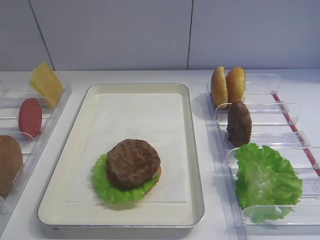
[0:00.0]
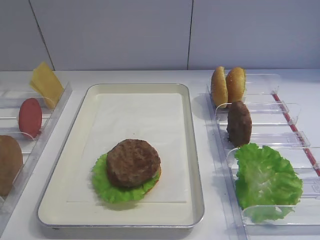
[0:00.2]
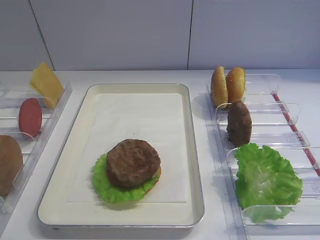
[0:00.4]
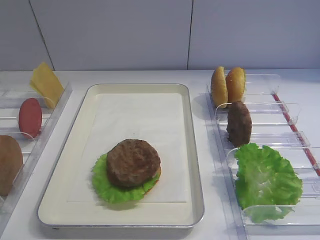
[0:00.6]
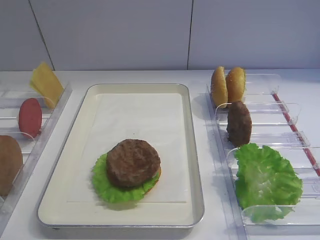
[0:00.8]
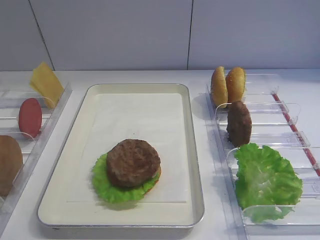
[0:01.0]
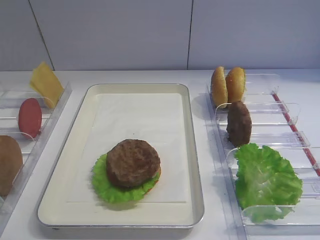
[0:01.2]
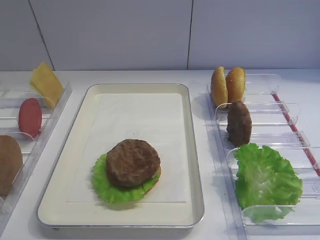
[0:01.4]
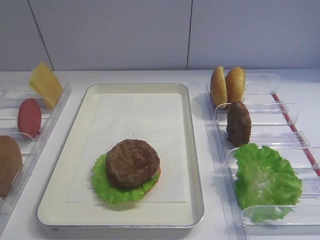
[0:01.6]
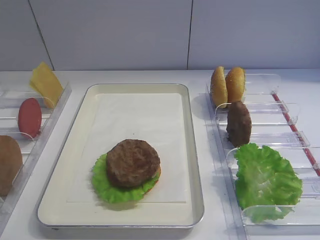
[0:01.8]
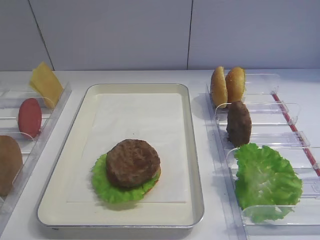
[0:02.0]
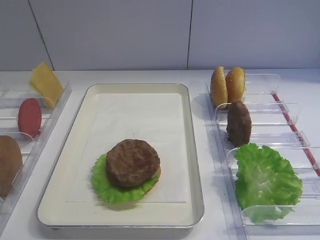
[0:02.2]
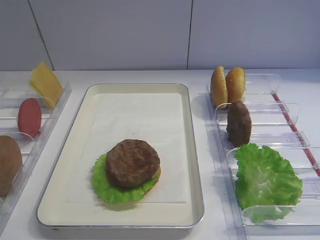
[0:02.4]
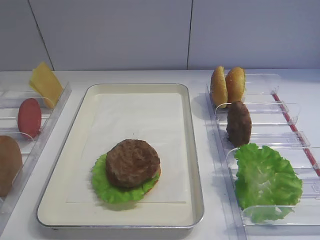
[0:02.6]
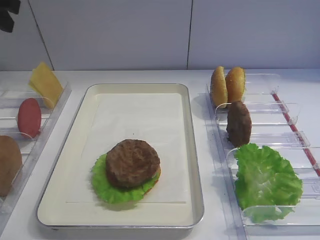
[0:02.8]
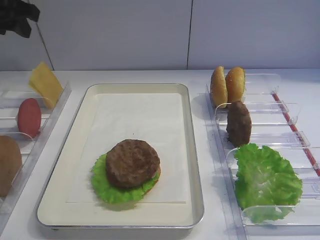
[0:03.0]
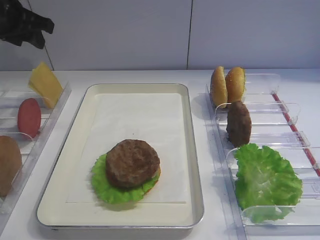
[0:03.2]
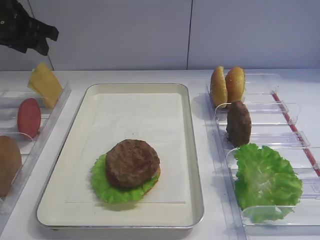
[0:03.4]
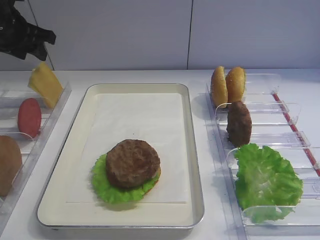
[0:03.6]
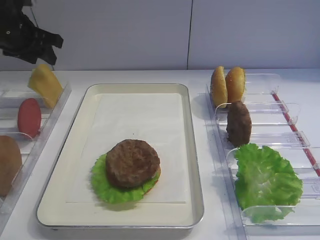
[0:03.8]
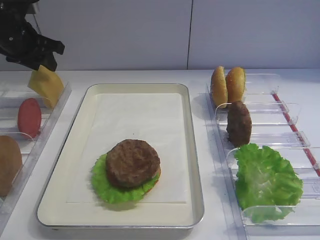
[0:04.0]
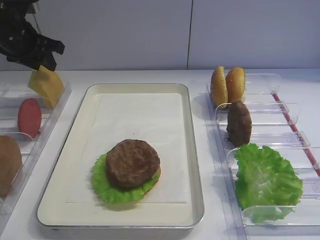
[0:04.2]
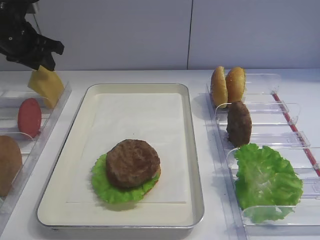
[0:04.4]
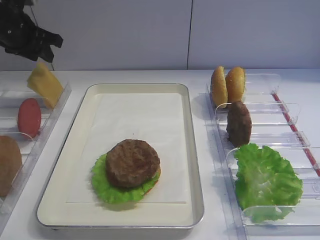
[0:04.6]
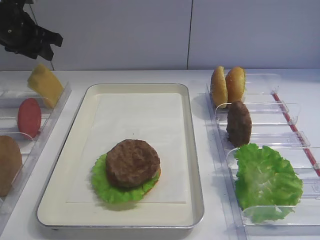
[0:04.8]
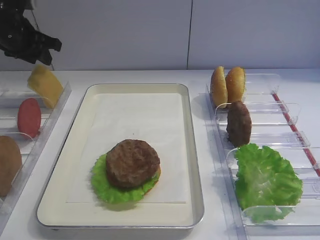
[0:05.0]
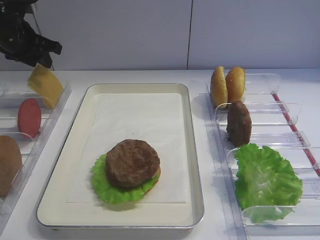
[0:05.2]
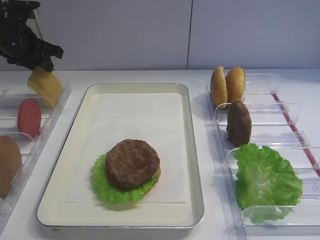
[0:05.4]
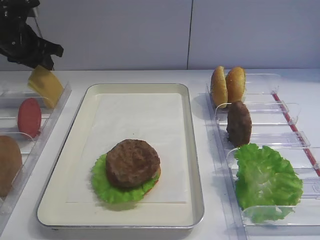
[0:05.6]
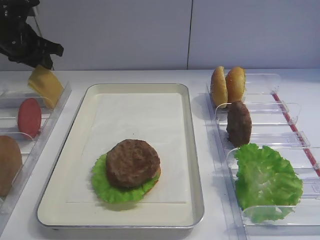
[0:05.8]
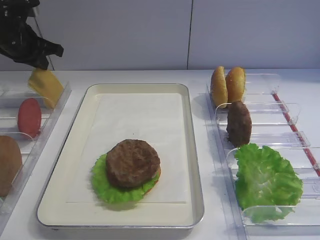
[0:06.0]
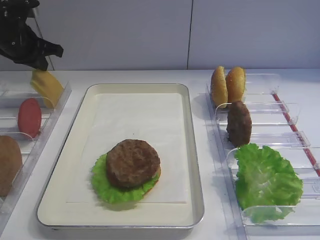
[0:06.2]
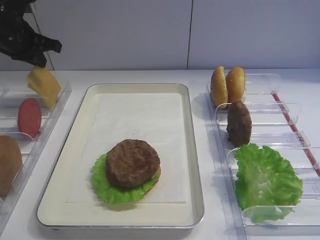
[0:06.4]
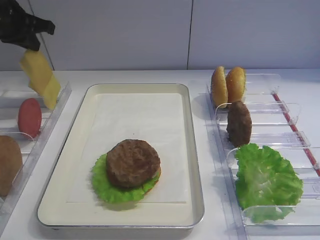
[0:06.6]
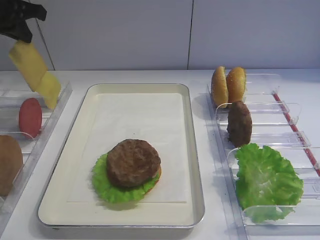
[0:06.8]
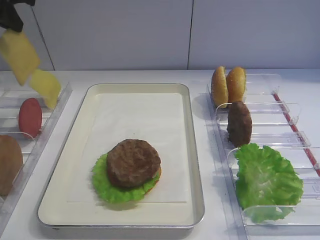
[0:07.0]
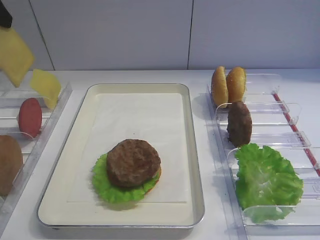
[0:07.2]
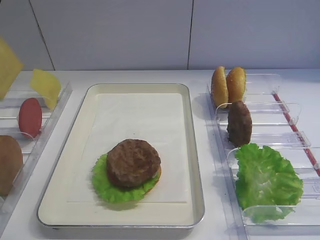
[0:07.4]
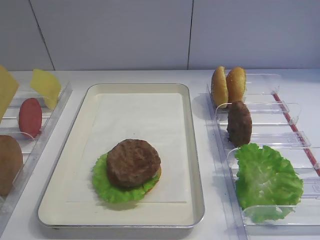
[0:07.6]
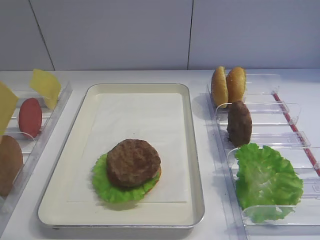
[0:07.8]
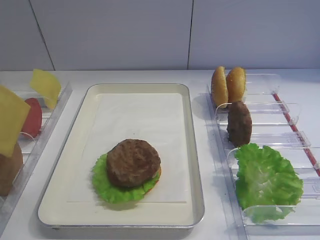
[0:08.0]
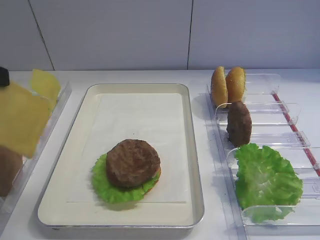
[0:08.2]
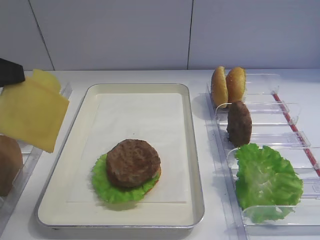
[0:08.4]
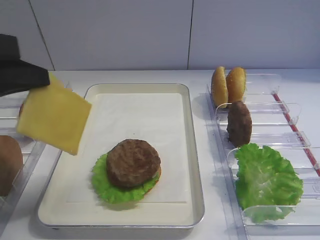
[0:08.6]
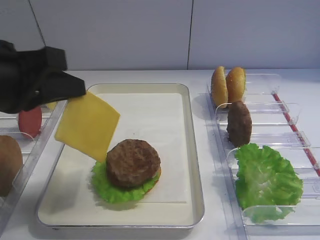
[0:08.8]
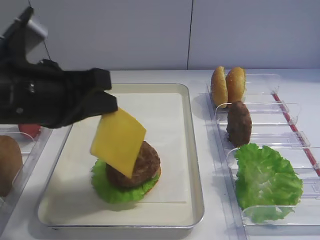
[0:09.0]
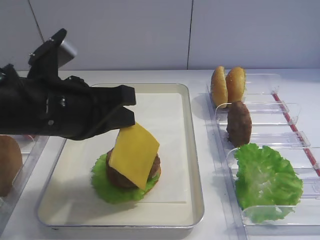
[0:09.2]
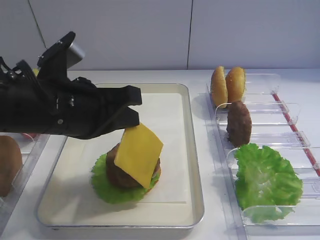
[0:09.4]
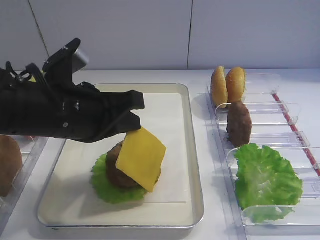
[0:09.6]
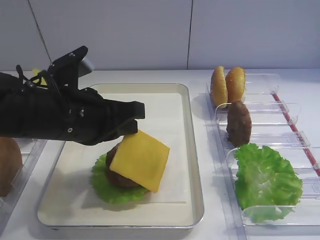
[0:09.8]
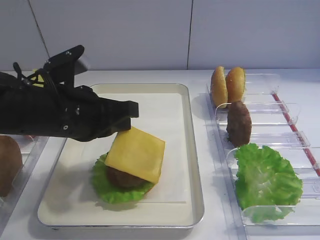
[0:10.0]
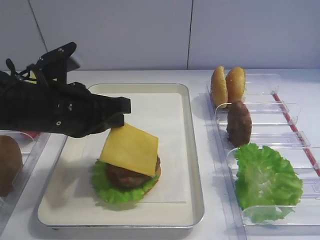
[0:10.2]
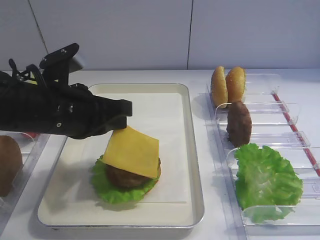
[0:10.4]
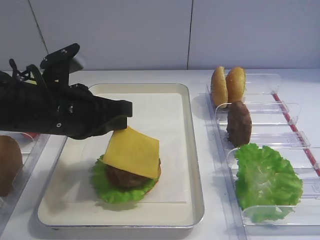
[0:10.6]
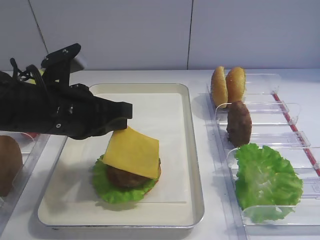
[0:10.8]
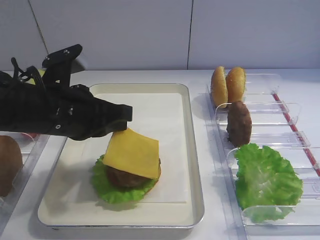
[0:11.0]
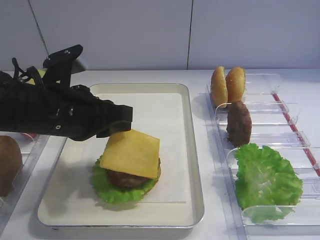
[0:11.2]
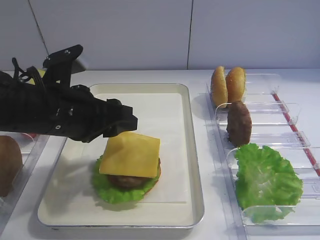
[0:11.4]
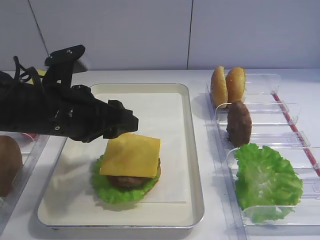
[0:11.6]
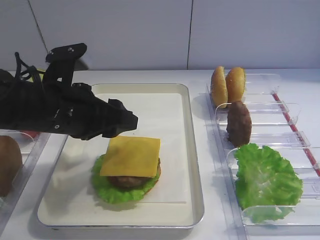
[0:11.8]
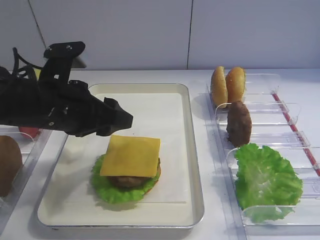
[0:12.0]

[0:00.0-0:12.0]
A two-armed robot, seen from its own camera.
Step, 0:00.0 to 0:07.0: Pick up the cheese slice with the left gripper.
0:01.6 to 0:03.0: The left gripper shifts roughly 35 cm forward.
0:03.0 to 0:04.4: The left gripper travels downward and forward by about 10 cm.
0:04.4 to 0:06.0: The left gripper closes.
0:06.0 to 0:07.6: The left gripper goes roughly 25 cm backward and upward.
0:07.6 to 0:09.0: The left gripper is displaced to the right and downward by some 15 cm.
0:09.0 to 0:10.4: The left gripper moves downward, approximately 5 cm.
0:10.4 to 0:12.0: The left gripper opens.

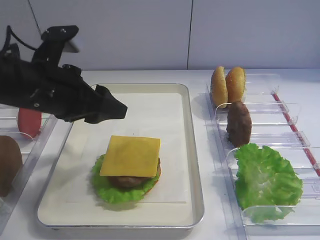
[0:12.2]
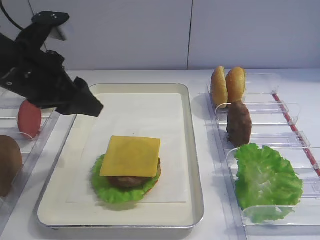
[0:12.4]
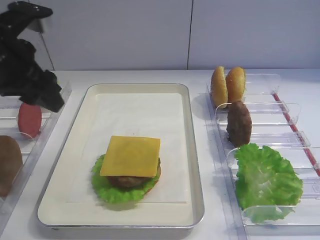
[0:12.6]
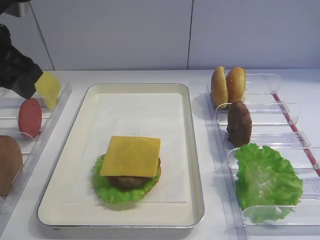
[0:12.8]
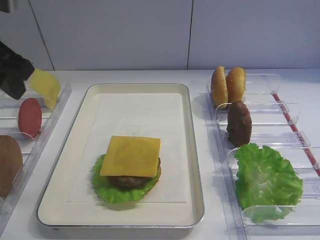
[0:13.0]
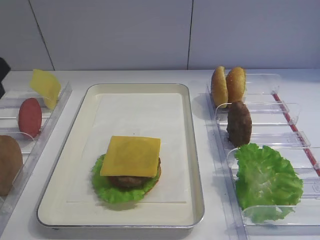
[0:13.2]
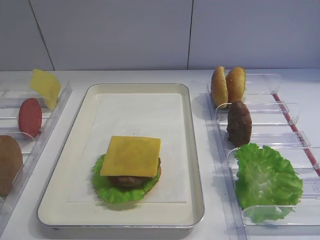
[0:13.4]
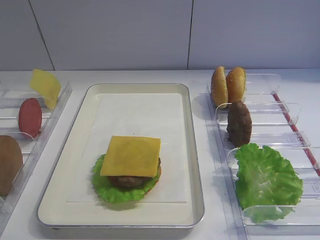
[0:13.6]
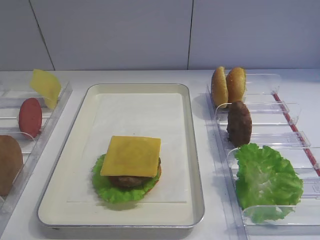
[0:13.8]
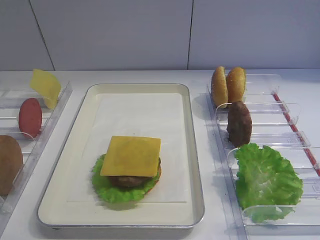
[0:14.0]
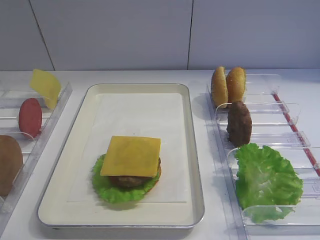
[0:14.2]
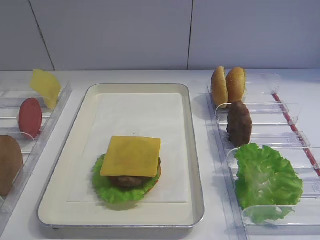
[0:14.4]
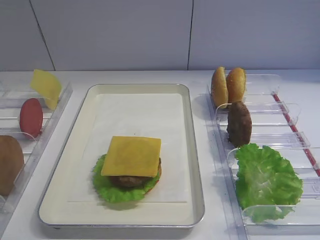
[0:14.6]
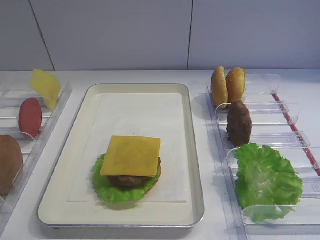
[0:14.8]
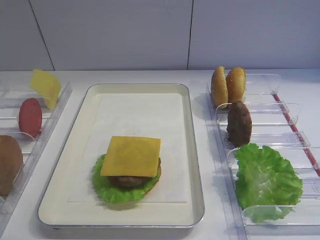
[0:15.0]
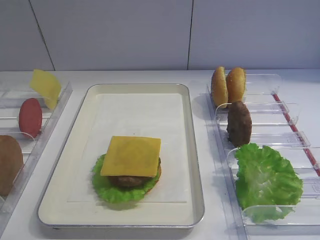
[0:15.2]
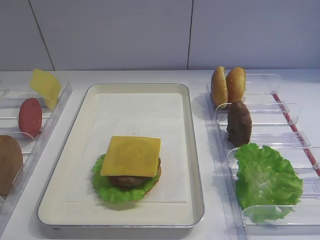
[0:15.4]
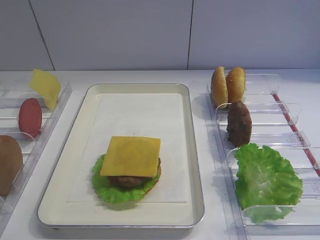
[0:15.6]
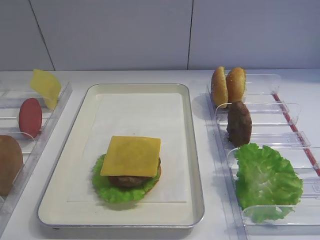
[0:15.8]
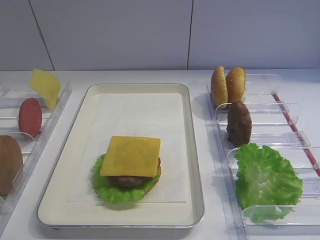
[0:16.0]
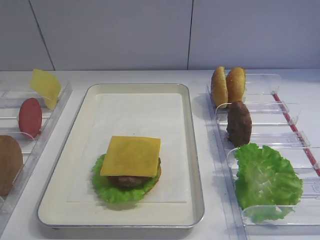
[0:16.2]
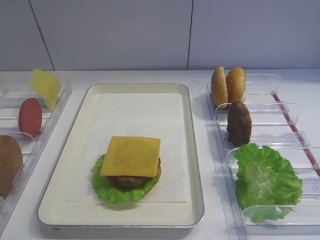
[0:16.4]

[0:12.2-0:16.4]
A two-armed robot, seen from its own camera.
0:12.2 to 0:13.6: The left gripper travels backward, to the left and upward by roughly 20 cm.

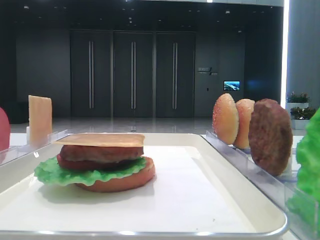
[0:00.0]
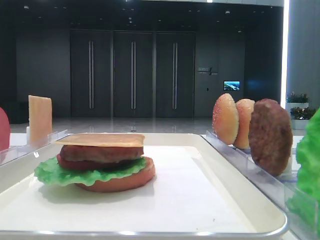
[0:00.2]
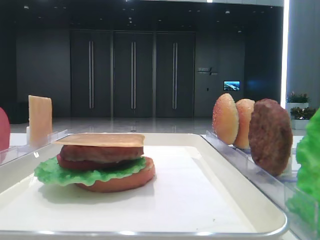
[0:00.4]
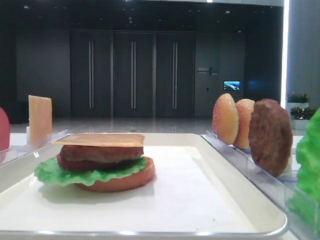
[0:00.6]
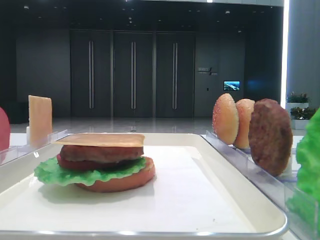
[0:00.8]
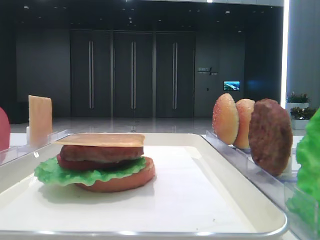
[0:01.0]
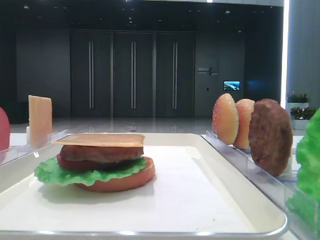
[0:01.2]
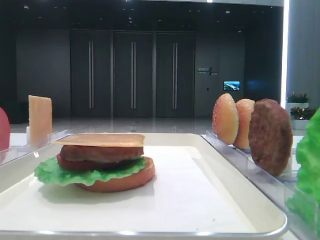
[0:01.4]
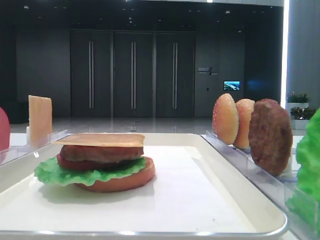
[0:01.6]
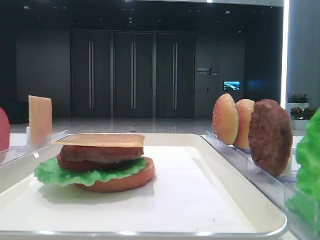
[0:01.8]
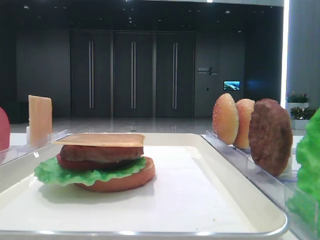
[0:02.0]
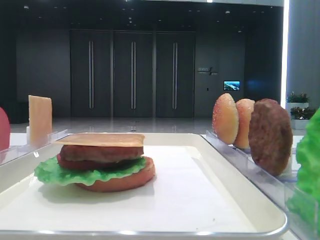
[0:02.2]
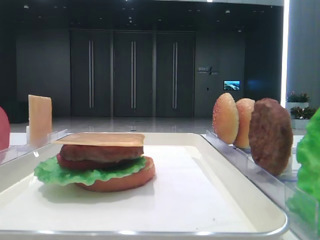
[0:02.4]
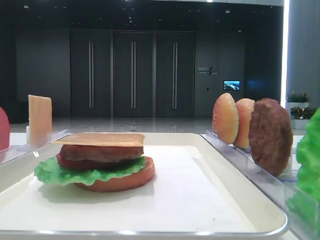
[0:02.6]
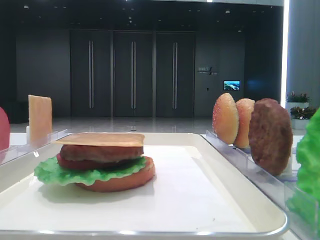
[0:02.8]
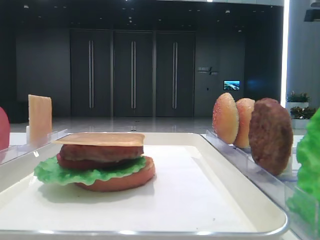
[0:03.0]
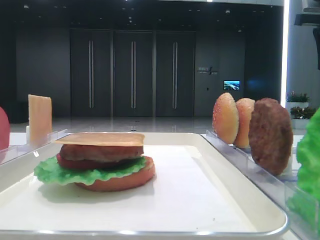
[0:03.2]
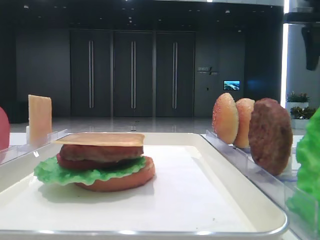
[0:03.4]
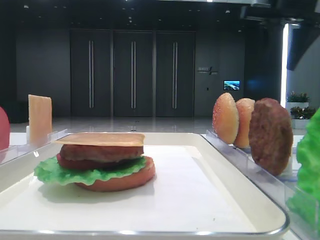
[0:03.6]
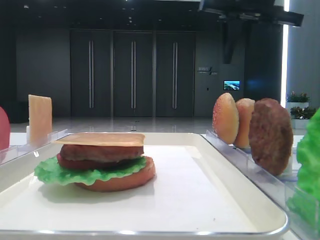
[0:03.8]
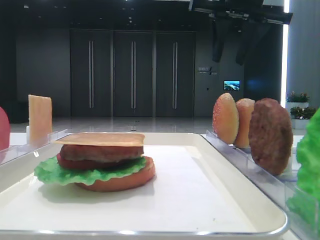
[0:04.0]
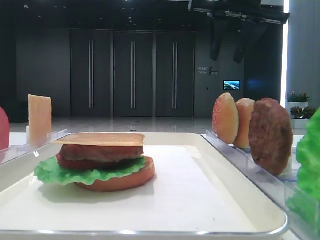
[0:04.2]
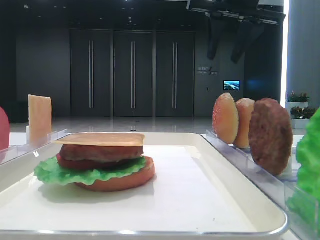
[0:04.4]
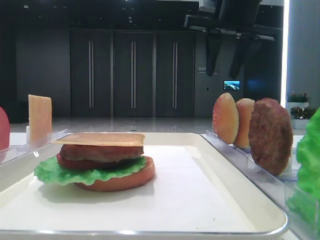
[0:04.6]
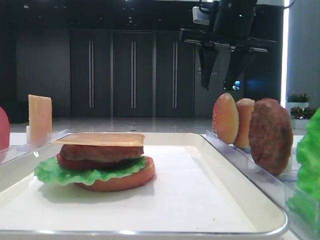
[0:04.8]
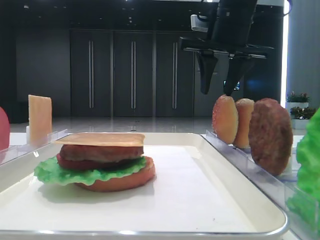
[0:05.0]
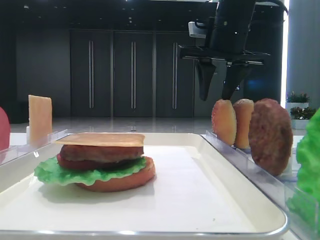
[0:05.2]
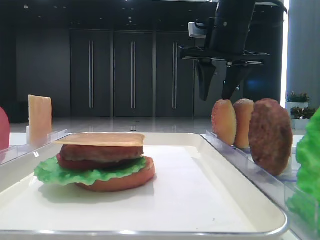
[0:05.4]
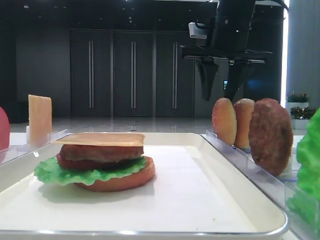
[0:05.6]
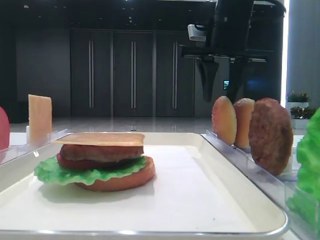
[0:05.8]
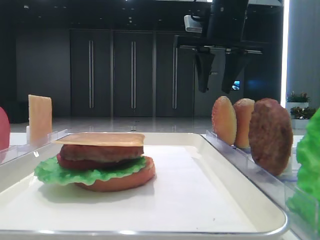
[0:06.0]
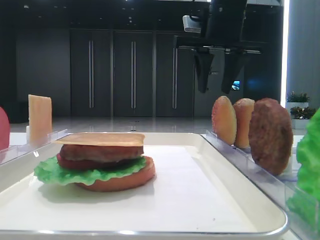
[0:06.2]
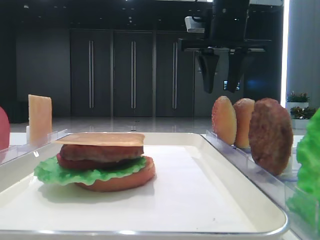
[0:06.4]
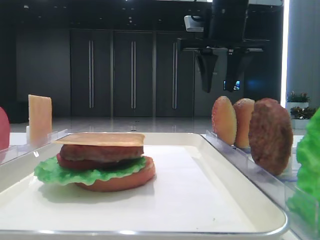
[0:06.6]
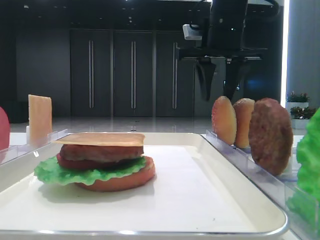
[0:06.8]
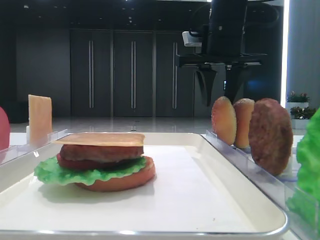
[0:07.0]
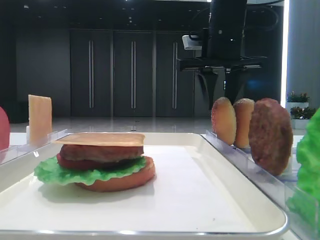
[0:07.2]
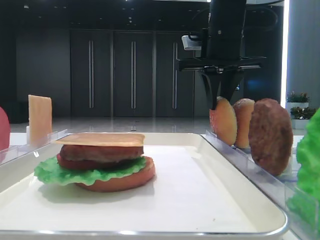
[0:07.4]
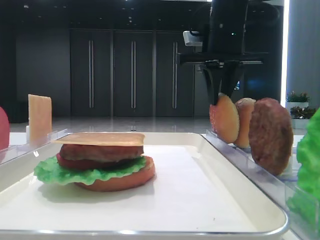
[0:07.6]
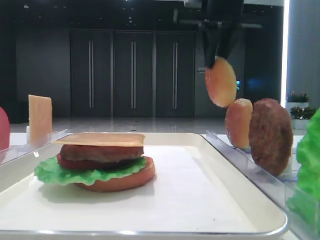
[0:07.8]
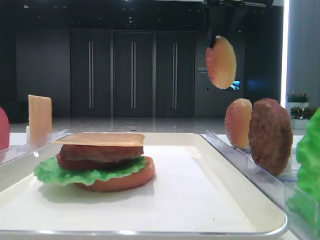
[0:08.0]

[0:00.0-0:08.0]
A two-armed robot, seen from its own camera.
Step, 0:00.0 to 0:07.4: Pick up the top bread slice with the right hand.
0:01.6 to 0:03.2: The right gripper travels forward by some 40 cm.
0:03.2 to 0:04.8: The right gripper heads to the left, covering about 20 cm.
0:04.8 to 0:06.4: There are only small adjustments of the grippers.
0:06.4 to 0:08.0: The right gripper heads upward, covering some 5 cm, and closes up.
